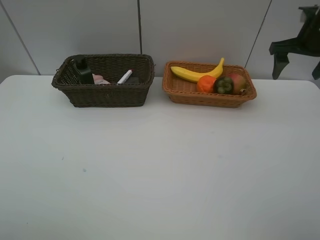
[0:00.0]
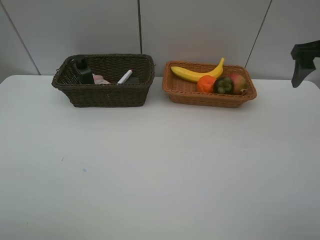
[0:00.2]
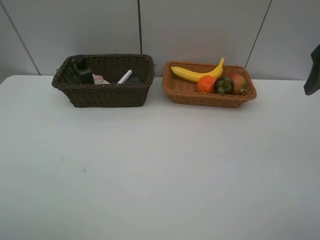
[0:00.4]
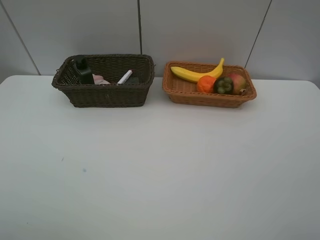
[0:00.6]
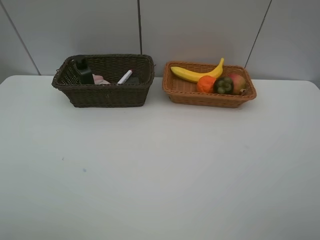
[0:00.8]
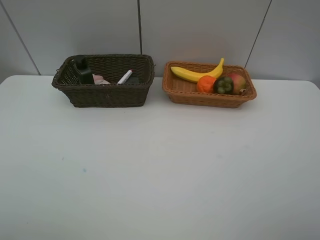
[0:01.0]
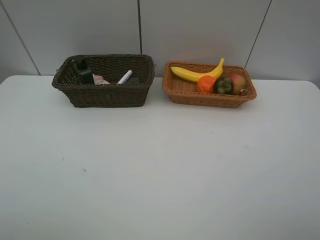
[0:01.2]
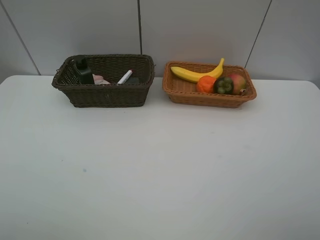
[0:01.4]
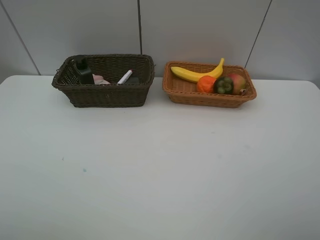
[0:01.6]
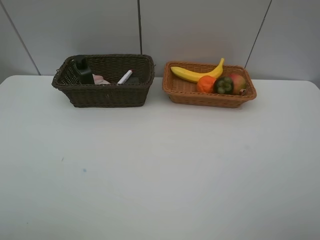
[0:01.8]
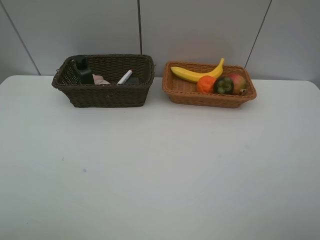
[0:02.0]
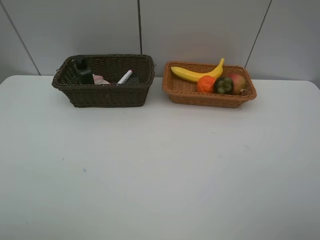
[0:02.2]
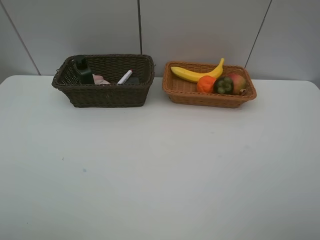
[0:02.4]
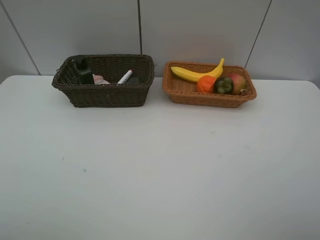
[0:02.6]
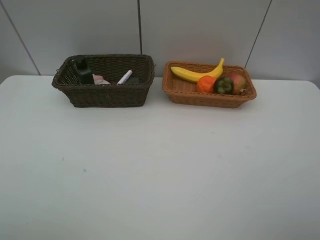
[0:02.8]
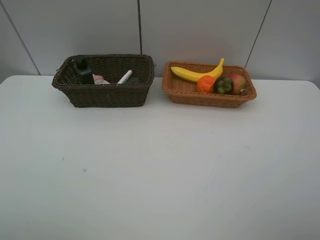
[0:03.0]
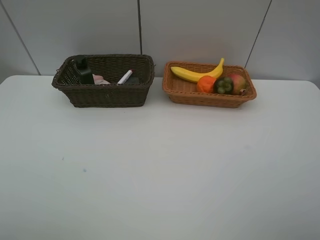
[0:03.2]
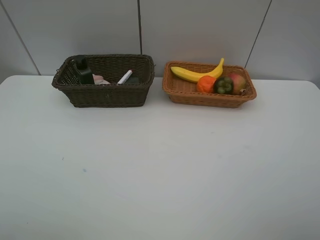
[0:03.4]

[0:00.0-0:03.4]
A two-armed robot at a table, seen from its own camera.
Task of the whole recording: Place multiple objects separately in different baskets.
0:00.0 to 0:01.6: The right gripper shifts about 40 cm backward.
0:01.6 to 0:03.4: Both grippers stay put.
